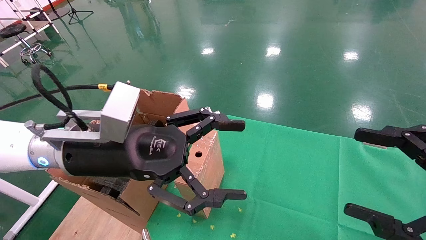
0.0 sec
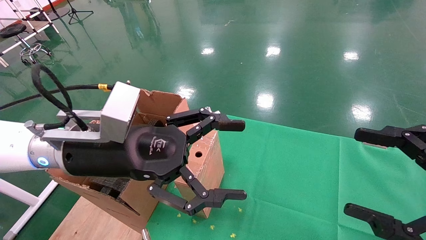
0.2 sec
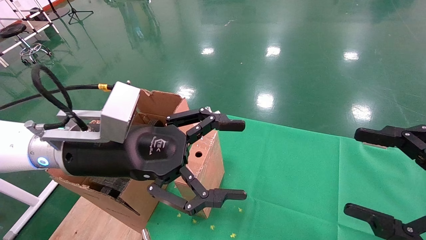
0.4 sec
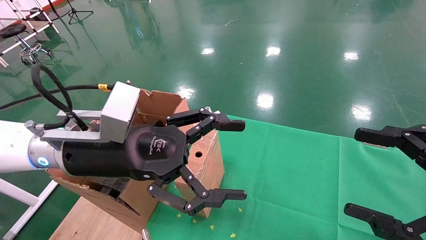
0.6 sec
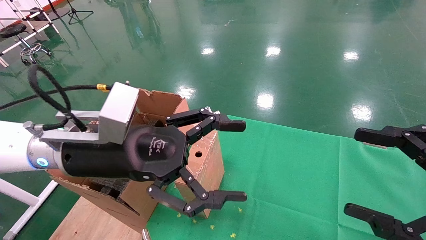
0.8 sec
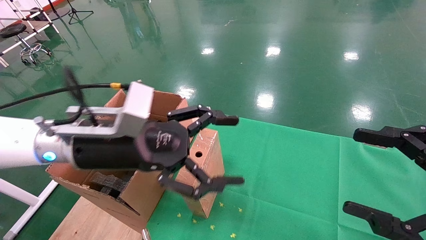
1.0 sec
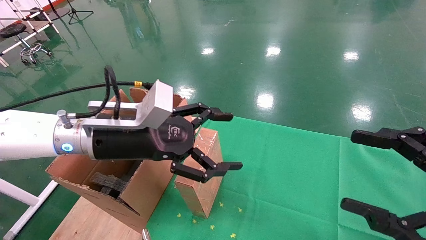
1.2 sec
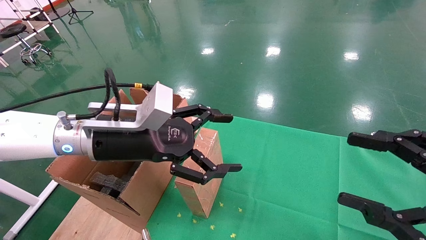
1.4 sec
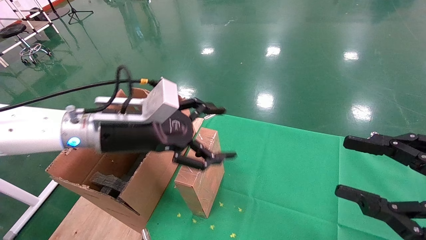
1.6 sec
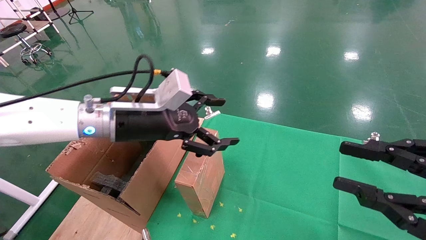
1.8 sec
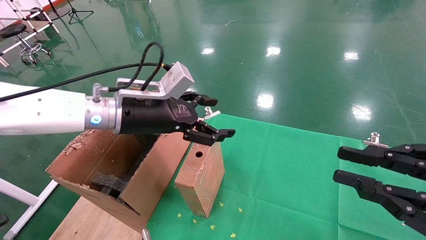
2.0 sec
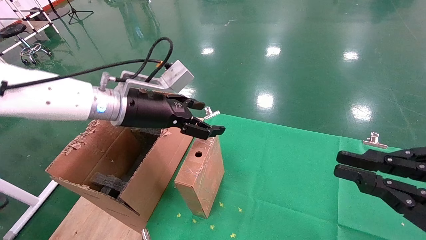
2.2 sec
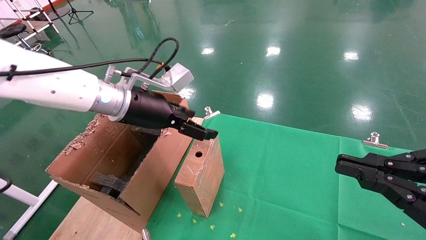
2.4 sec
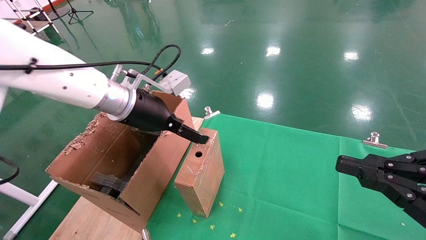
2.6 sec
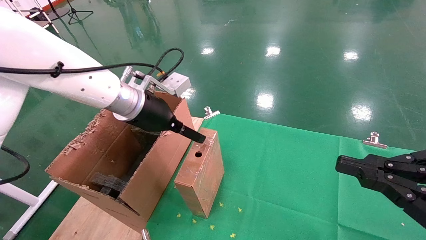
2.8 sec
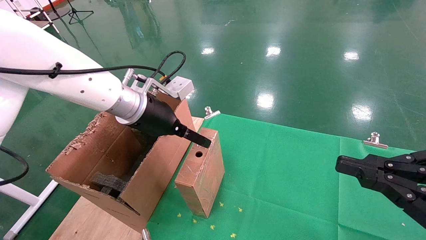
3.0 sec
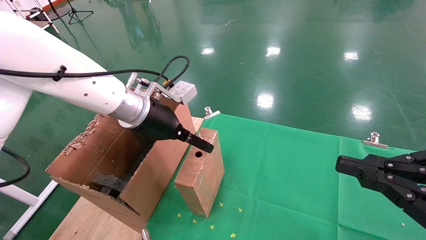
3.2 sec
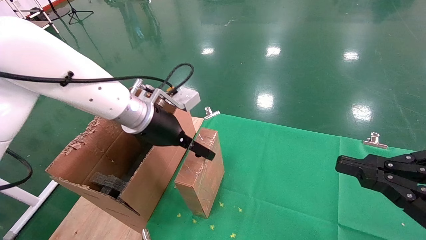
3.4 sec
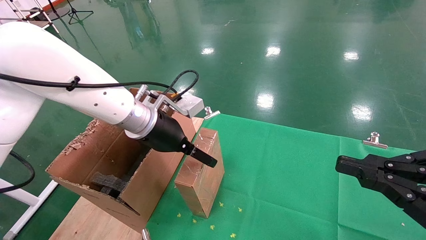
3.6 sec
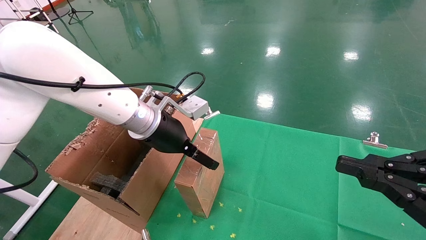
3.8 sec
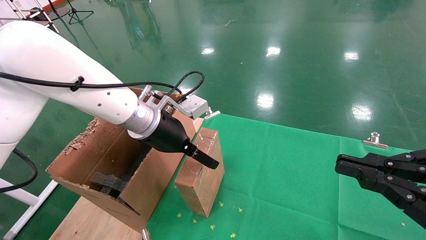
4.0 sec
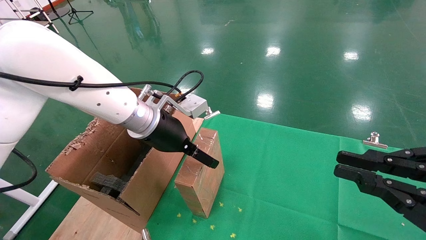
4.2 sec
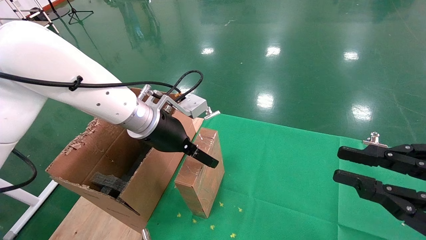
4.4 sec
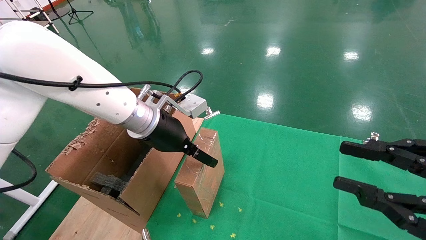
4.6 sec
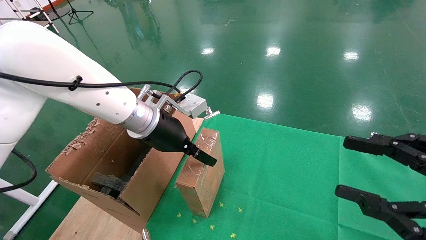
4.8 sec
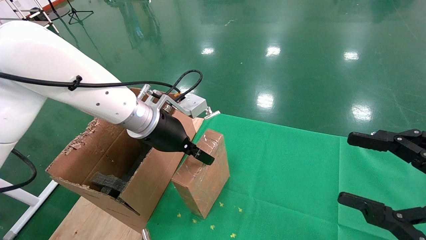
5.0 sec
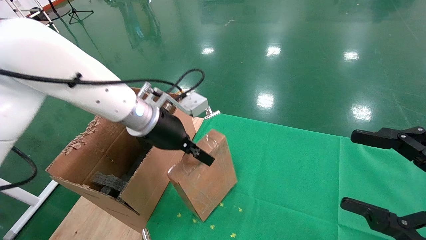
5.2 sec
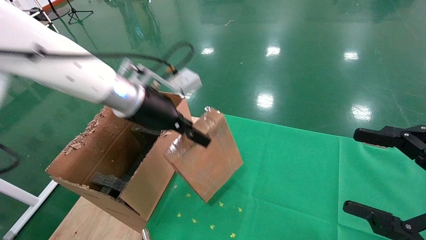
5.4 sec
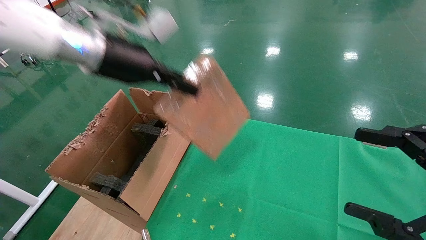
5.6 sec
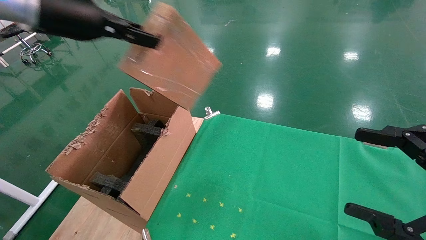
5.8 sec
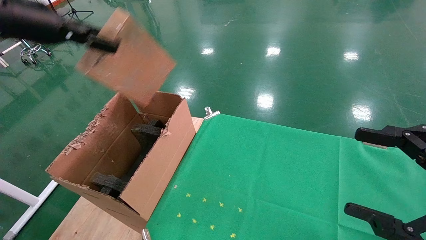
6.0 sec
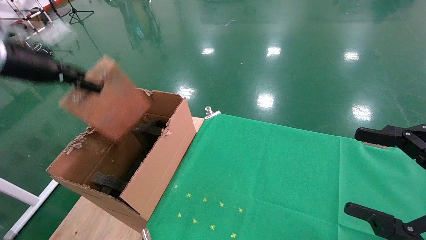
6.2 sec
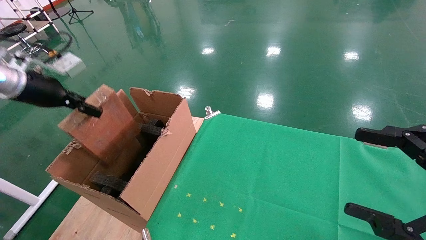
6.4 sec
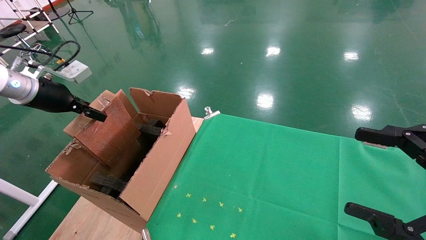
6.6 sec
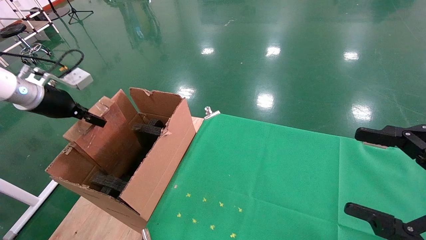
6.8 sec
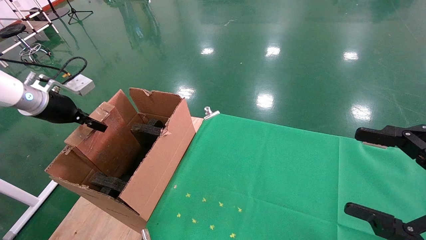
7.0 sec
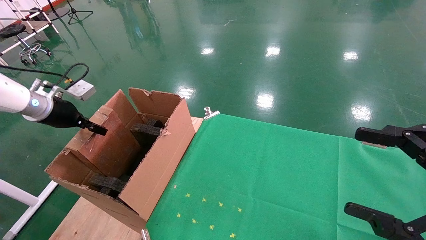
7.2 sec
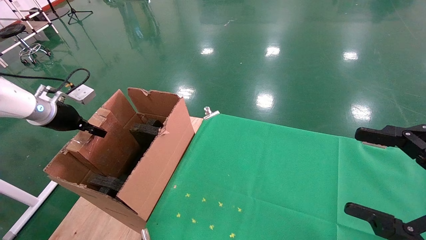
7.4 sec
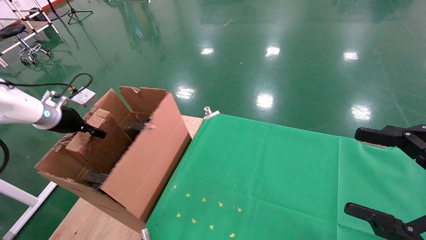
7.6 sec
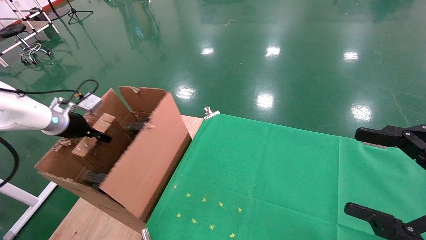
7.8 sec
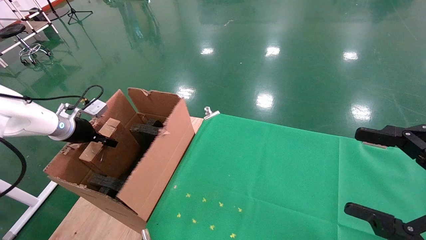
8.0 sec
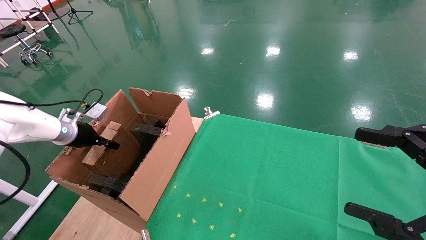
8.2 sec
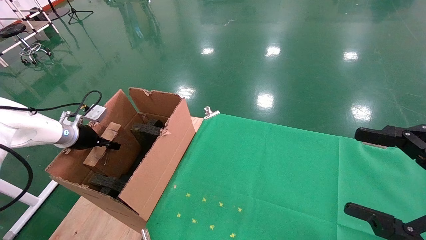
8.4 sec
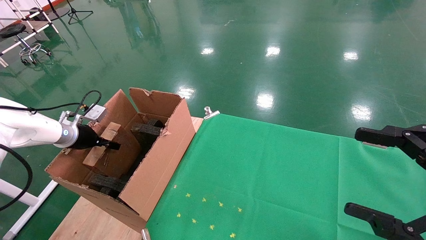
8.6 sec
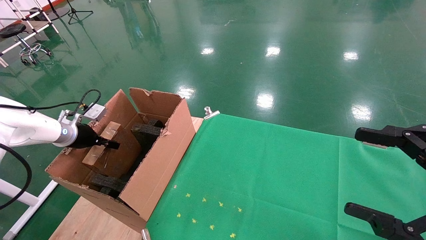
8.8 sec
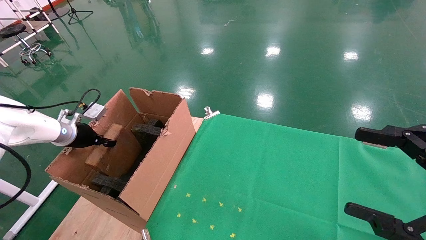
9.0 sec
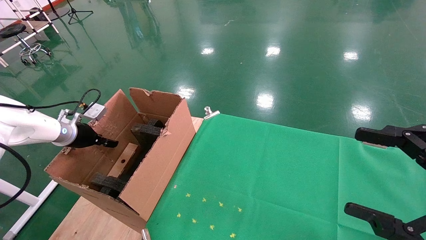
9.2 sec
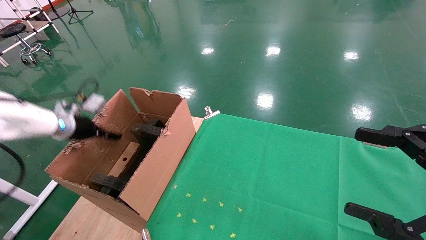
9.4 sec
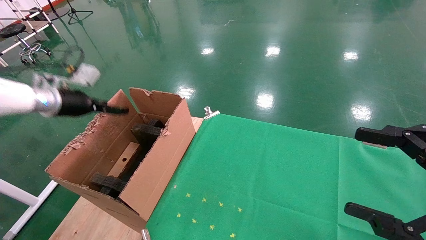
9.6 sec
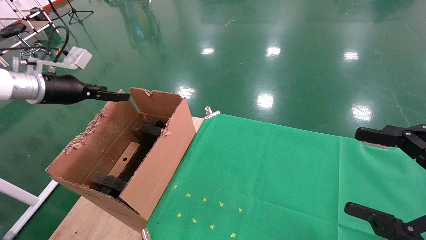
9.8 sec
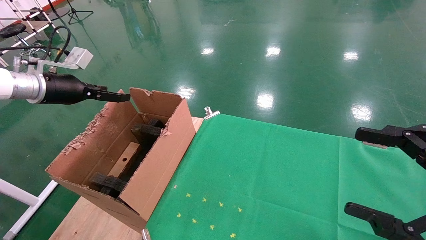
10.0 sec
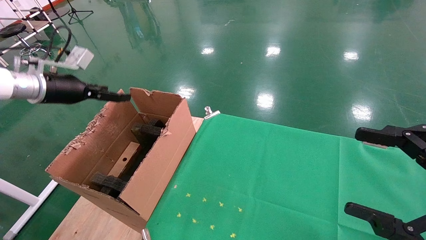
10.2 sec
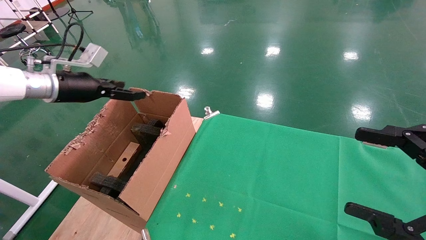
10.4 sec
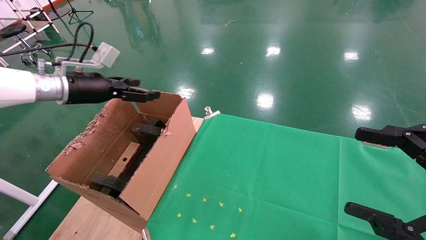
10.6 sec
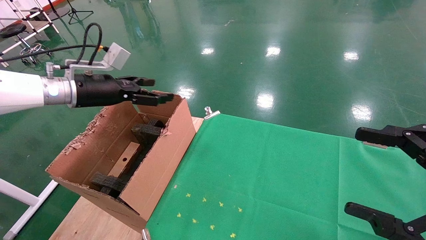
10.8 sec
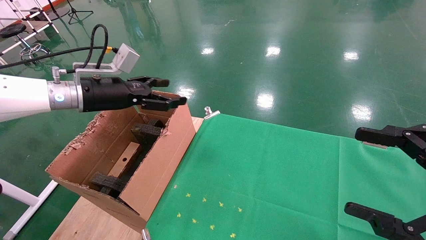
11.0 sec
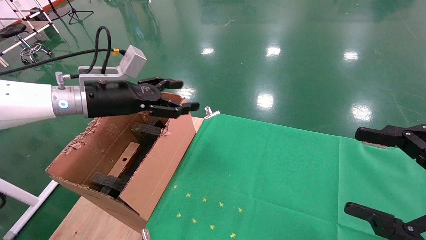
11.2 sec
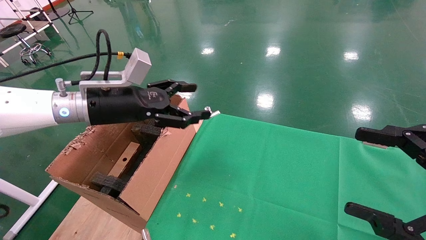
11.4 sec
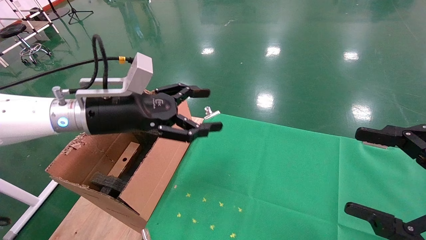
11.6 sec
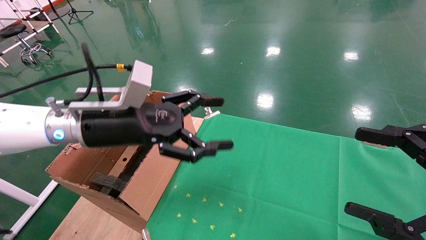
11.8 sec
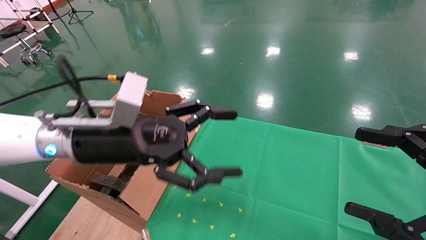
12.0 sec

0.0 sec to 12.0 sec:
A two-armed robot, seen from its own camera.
Task of the whole recording: using a robotic arm to pick up a cardboard box and palace it the carton.
Step, 1.0 sec to 5.0 sec: Pick up the mouse and the power cord paper box.
Step, 5.2 sec to 9.6 sec: Place the mouse and the power cord paper box into the container.
0.0 sec to 1.6 sec: The left gripper is displaced forward by about 5 cm.
1.6 sec to 3.0 sec: The left gripper shifts approximately 5 cm forward. The right gripper closes its fingers.
3.0 sec to 4.4 sec: The grippers make only small movements.
4.4 sec to 6.0 sec: The right gripper opens its fingers, while the left gripper travels to the left and upward by roughly 25 cm, and closes.
6.0 sec to 7.6 sec: The left gripper heads downward, to the left and forward, covering some 25 cm.
7.6 sec to 9.0 sec: The left gripper travels downward by approximately 5 cm.
9.0 sec to 10.4 sec: The left gripper heads upward and to the right, covering some 15 cm, and opens up.
10.4 sec to 12.0 sec: The left gripper is displaced to the right and backward by some 25 cm.

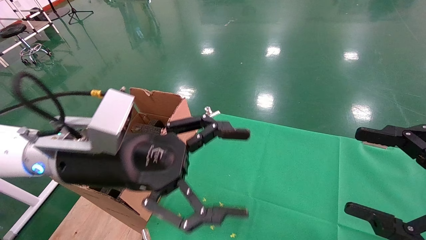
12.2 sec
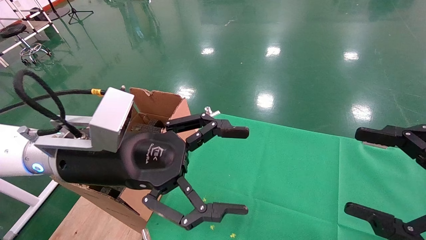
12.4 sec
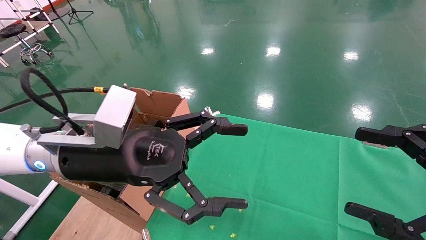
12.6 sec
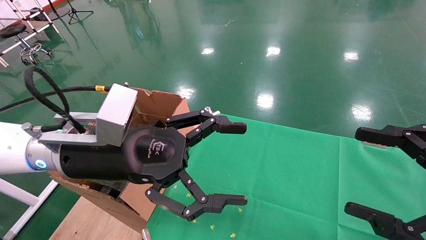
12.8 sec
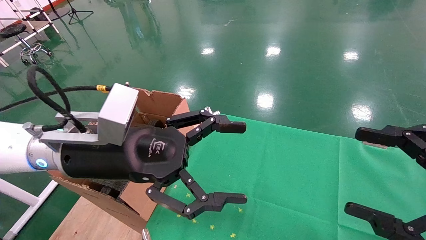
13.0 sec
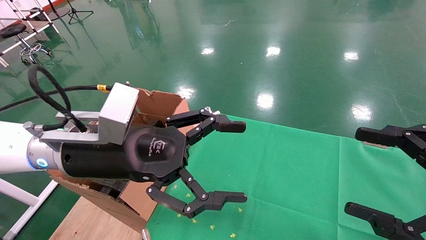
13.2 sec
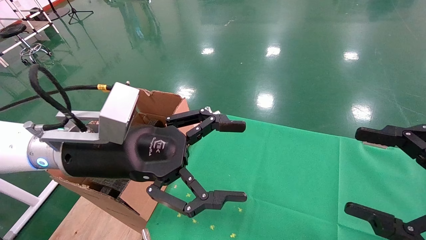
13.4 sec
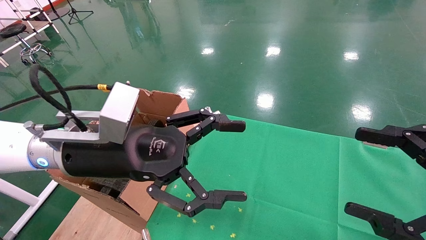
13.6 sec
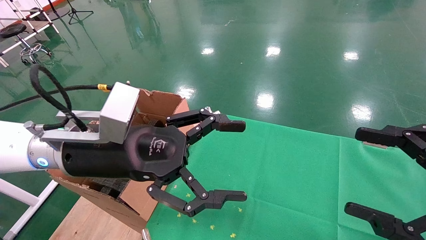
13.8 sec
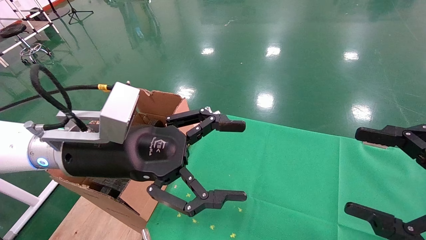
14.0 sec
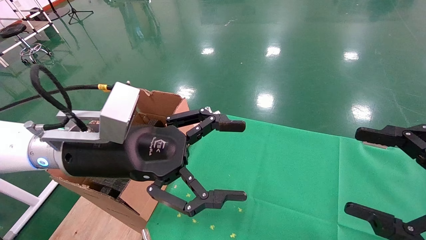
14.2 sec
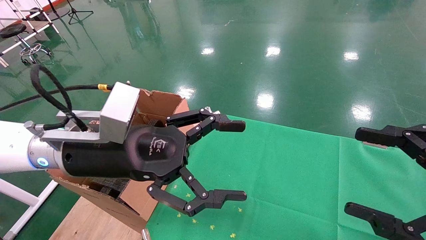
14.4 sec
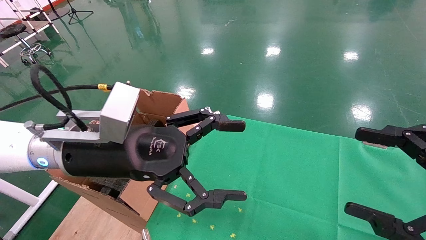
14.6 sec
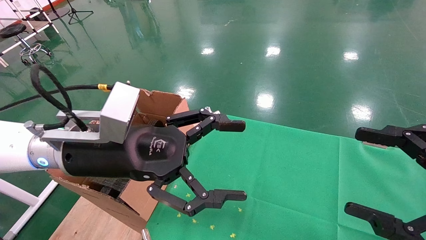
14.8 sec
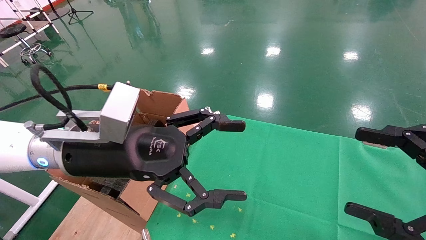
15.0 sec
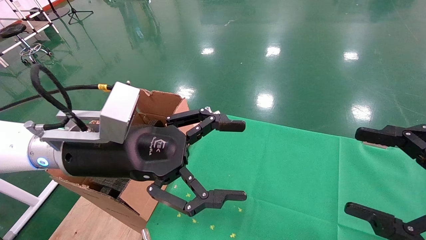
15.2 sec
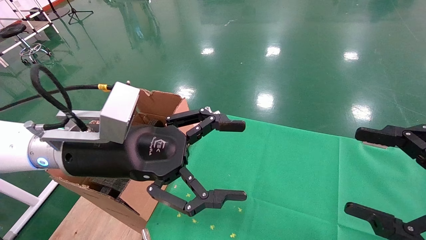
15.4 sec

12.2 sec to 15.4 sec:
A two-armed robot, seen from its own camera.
Task of the whole recording: using a robotic arm to pick up a cardboard box and palace it the carton.
12.2 sec to 15.4 sec: Both grippers stay about where they are.
